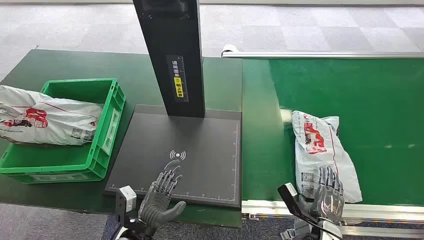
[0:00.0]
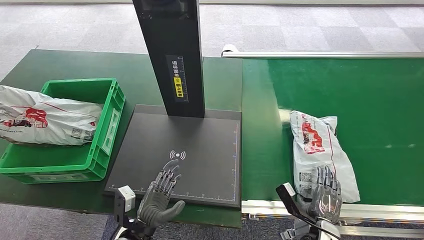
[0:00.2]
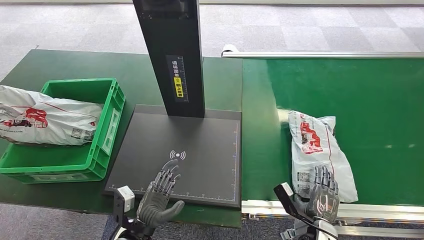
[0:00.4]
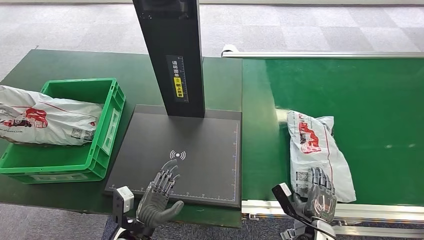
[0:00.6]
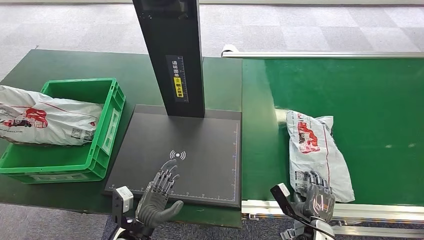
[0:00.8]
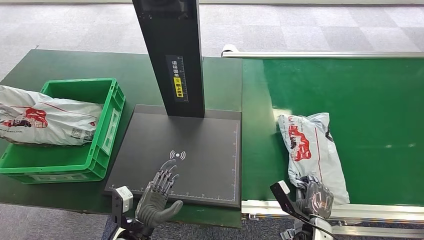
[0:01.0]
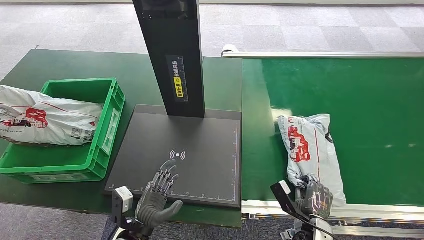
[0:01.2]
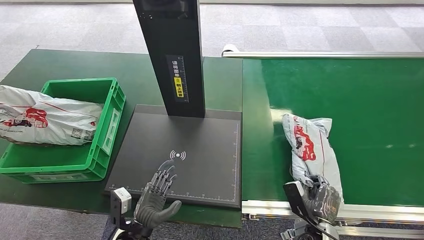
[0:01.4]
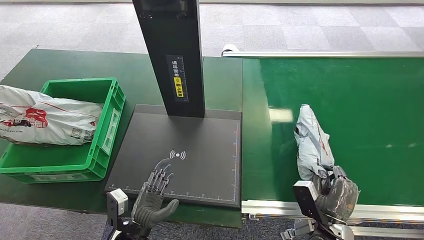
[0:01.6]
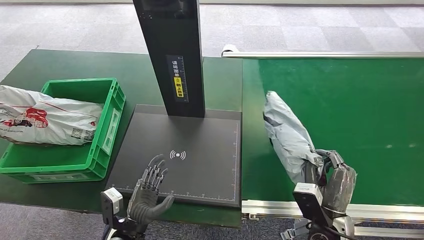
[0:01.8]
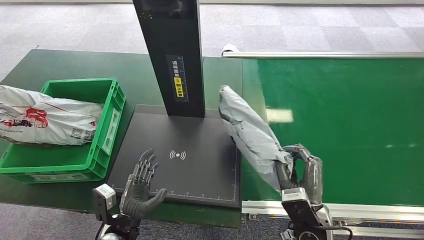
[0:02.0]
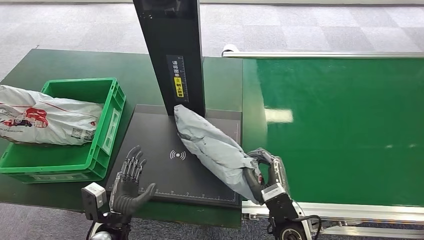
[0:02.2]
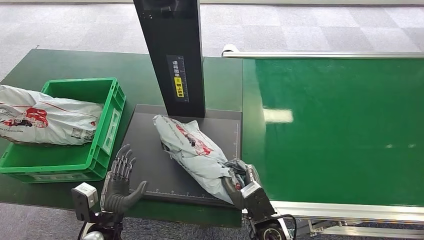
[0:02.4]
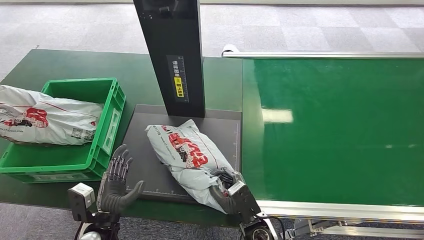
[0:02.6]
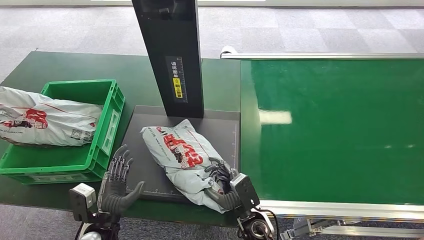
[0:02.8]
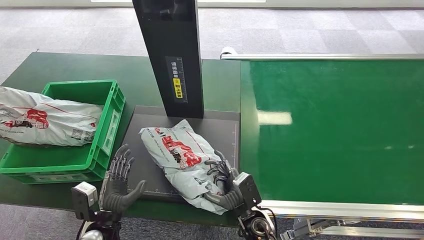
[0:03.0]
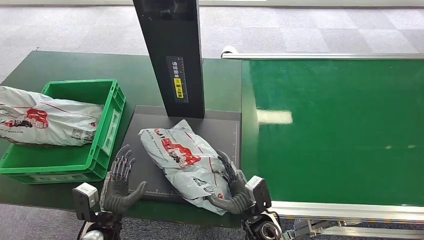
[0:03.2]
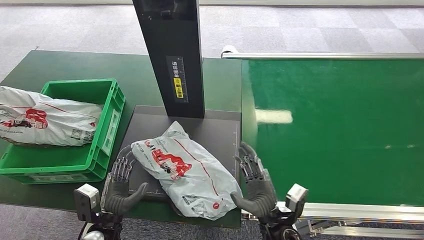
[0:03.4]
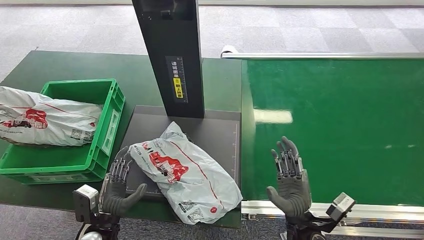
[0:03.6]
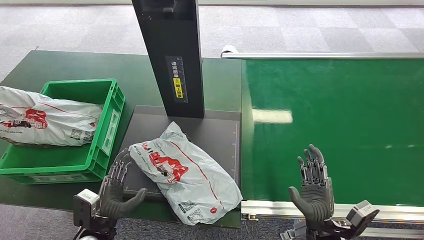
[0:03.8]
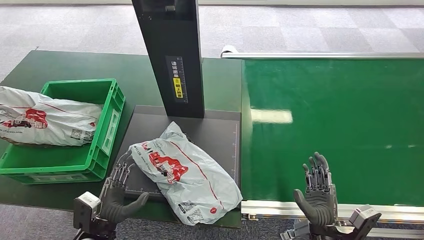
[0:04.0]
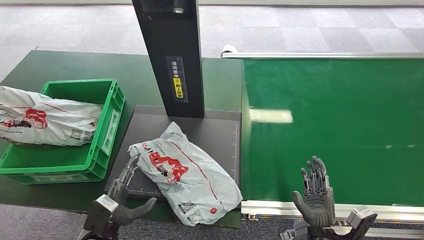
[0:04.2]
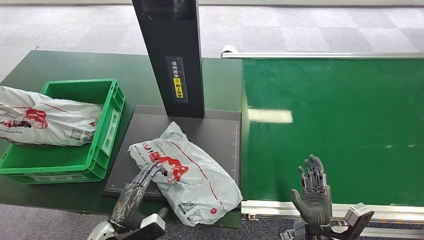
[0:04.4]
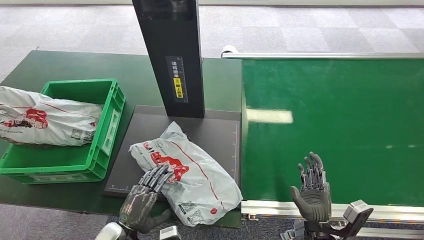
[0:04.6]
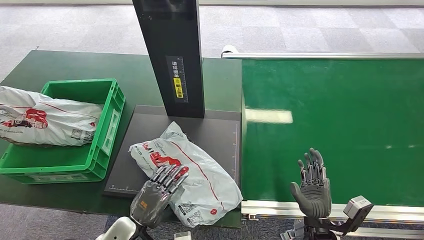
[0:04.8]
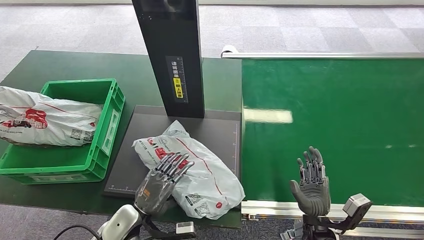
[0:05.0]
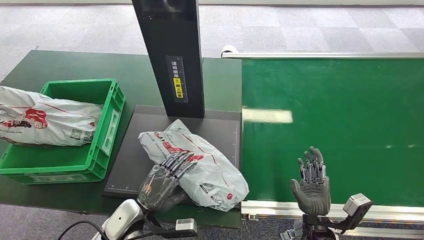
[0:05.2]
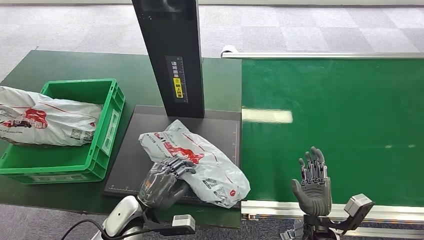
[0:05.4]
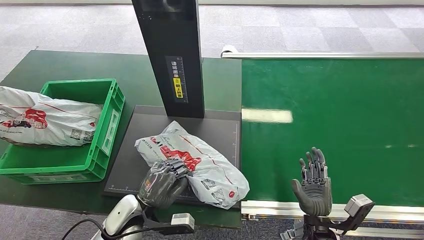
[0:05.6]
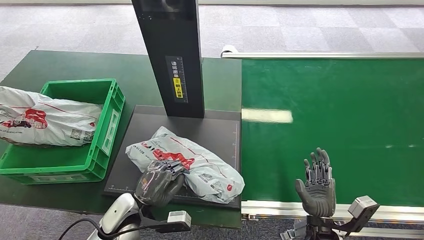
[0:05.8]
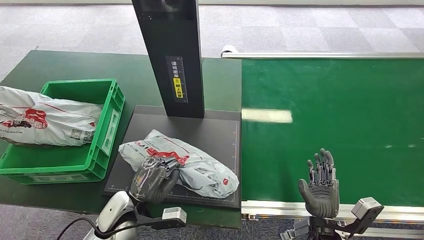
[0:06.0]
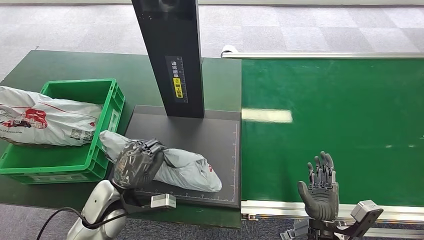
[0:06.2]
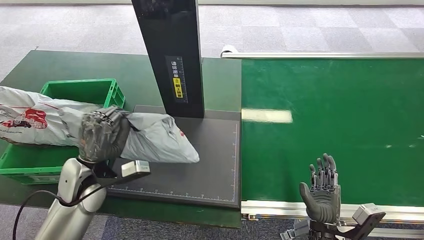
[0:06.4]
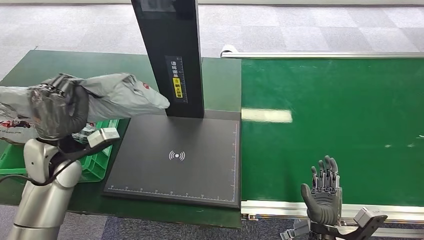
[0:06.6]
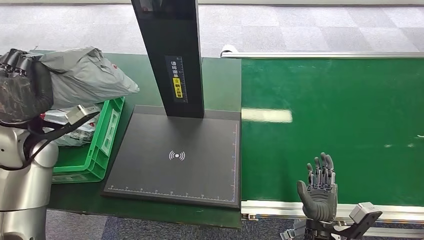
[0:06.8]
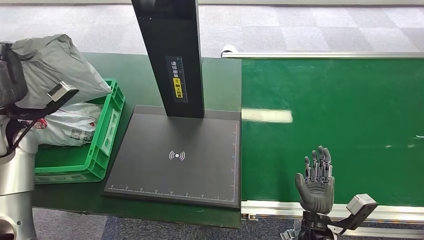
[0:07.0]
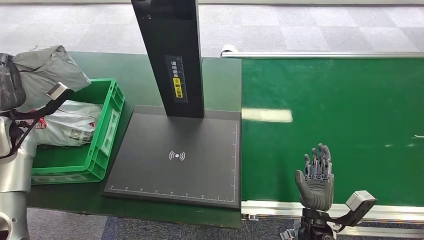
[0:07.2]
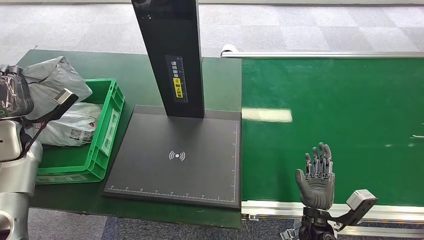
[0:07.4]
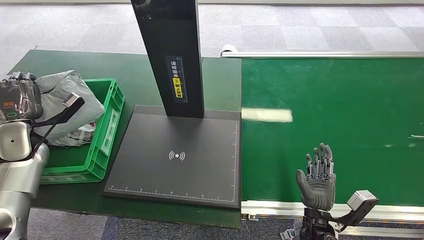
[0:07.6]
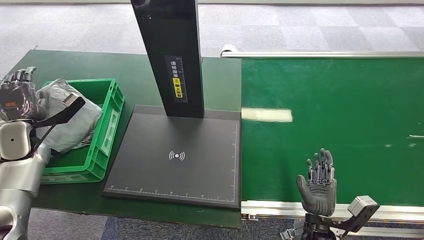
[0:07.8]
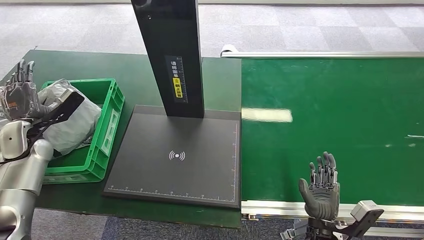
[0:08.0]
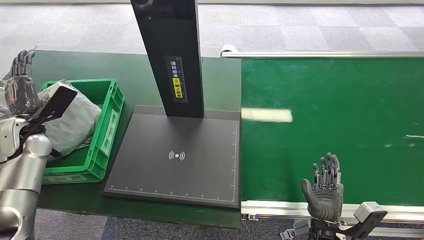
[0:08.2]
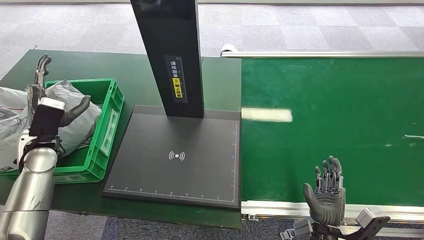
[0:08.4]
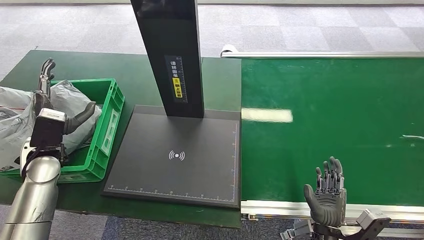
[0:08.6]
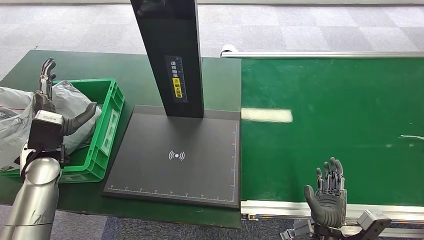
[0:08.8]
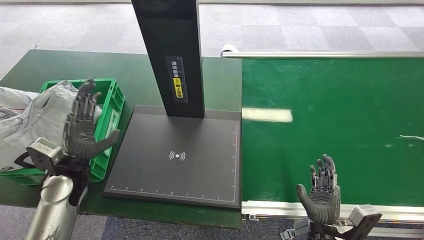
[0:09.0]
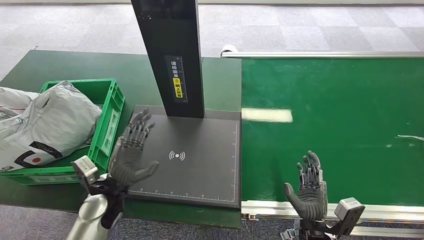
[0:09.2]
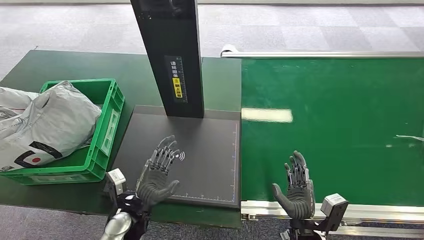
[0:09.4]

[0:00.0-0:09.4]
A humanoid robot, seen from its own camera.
Task of the whole recording: Weigh the package on the weighing device and place it in the left basket.
Step, 0:00.0 to 0:01.8: Pick up the package from the conveyor belt.
Step, 0:02.0 to 0:03.8: Place the package onto the inbound machine.
Step, 0:04.6 to 0:06.8: Pick up the package from the inbound machine.
Step, 0:07.2 to 0:09.2: Place the package into the parcel locker.
0:03.2 to 0:04.8: The right hand shifts about 15 cm to the right.
0:04.8 to 0:06.2: The left hand shifts about 10 cm upward and forward.
0:06.2 to 0:07.8: The left hand shifts approximately 25 cm to the left and forward.
0:07.8 to 0:09.4: The left hand travels to the right, downward and backward by approximately 35 cm.
